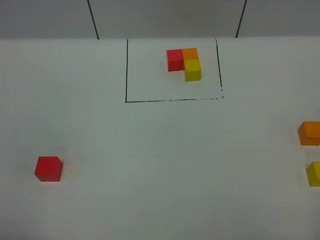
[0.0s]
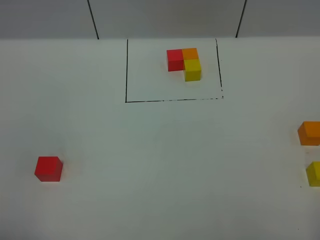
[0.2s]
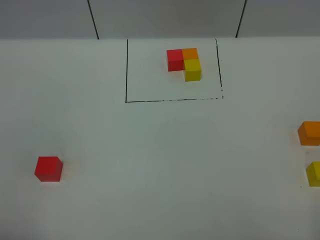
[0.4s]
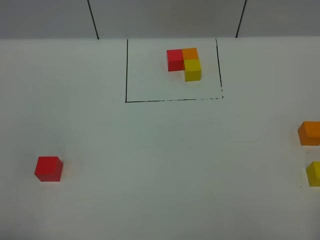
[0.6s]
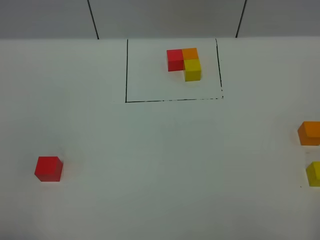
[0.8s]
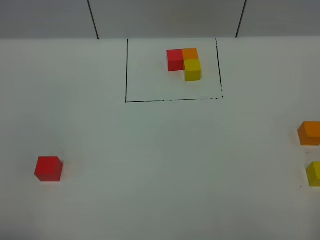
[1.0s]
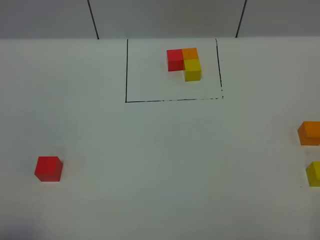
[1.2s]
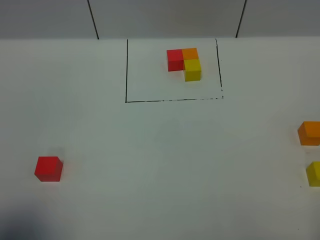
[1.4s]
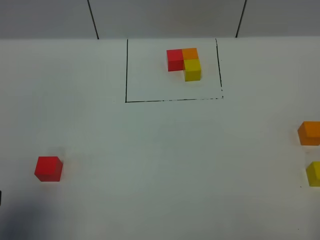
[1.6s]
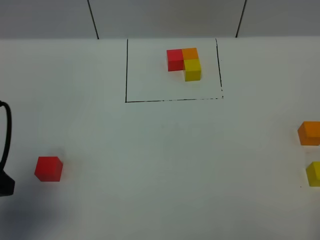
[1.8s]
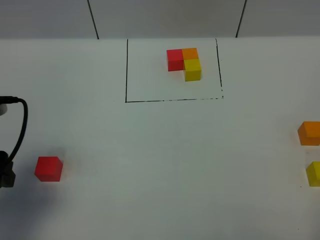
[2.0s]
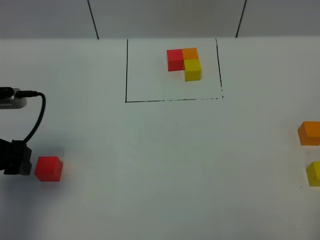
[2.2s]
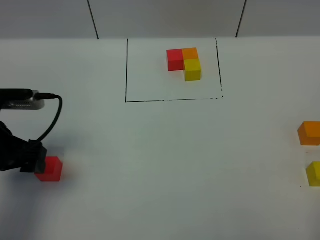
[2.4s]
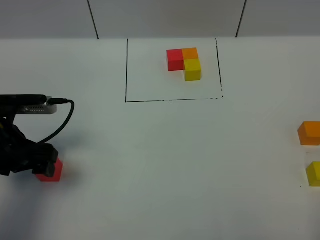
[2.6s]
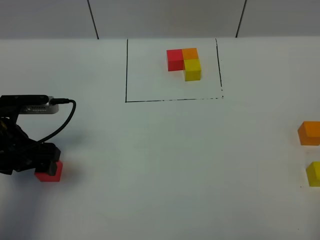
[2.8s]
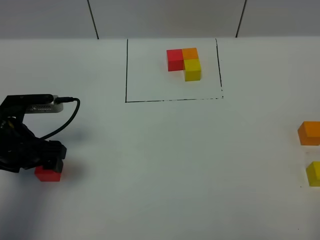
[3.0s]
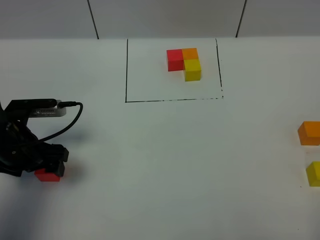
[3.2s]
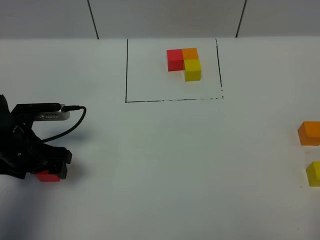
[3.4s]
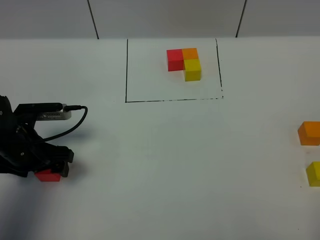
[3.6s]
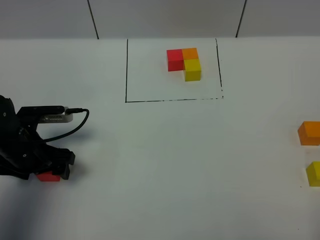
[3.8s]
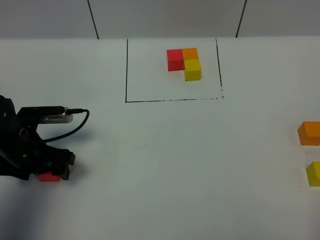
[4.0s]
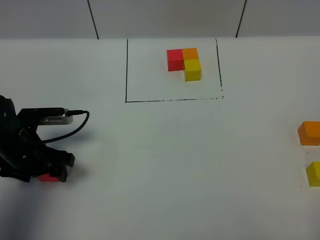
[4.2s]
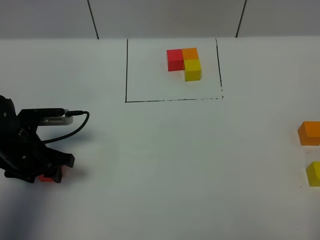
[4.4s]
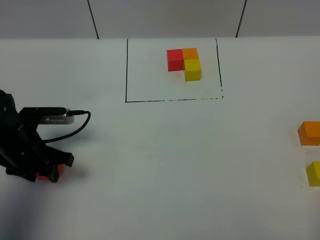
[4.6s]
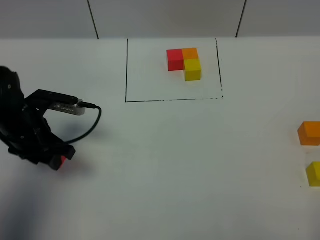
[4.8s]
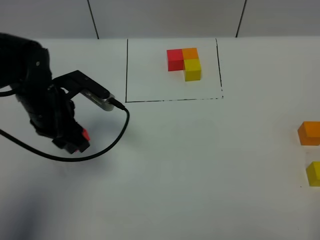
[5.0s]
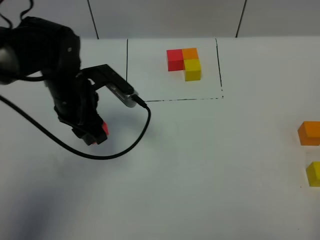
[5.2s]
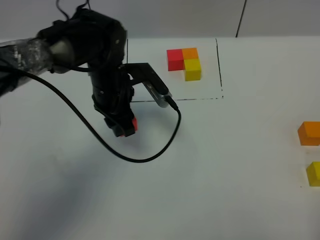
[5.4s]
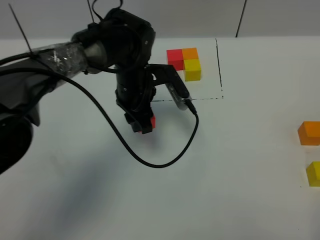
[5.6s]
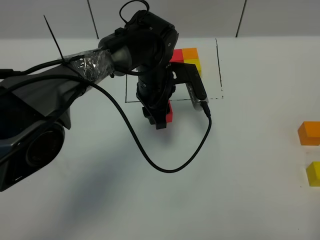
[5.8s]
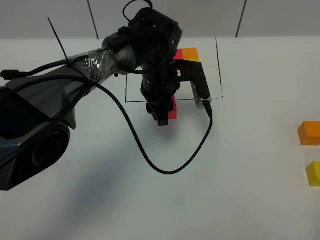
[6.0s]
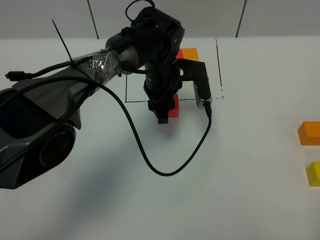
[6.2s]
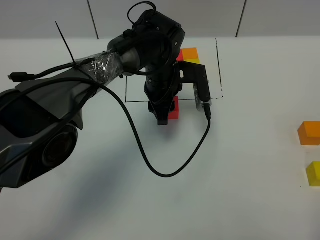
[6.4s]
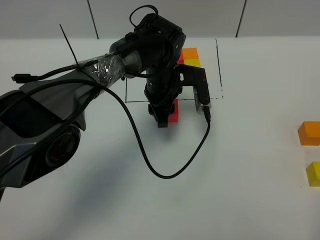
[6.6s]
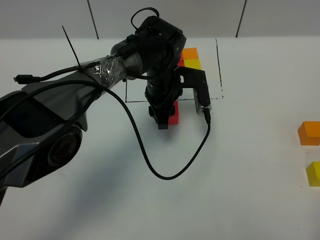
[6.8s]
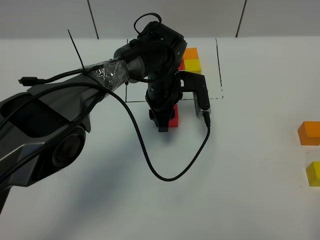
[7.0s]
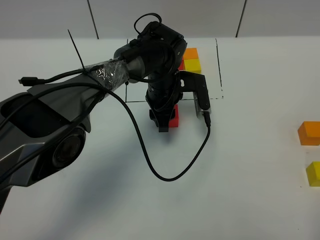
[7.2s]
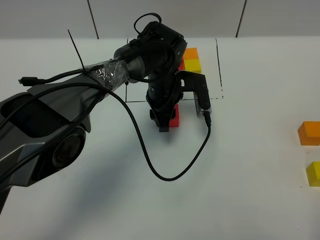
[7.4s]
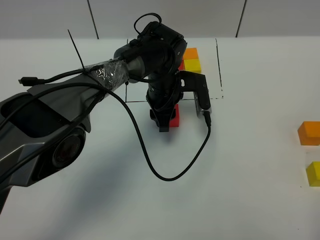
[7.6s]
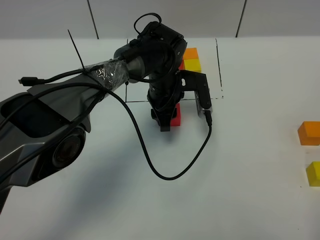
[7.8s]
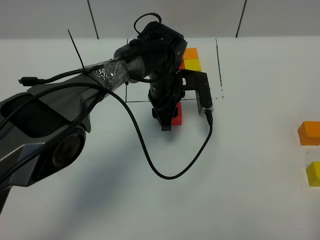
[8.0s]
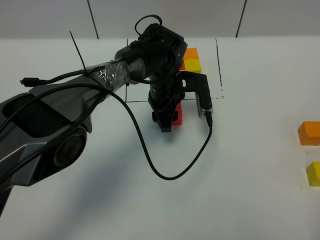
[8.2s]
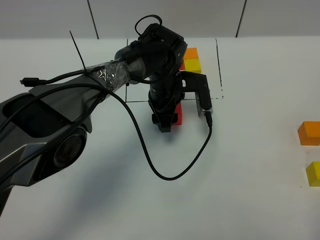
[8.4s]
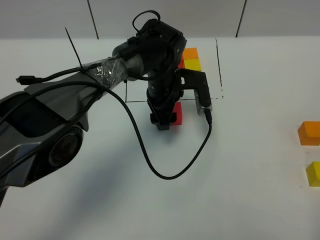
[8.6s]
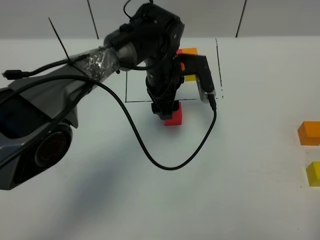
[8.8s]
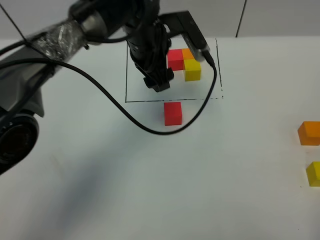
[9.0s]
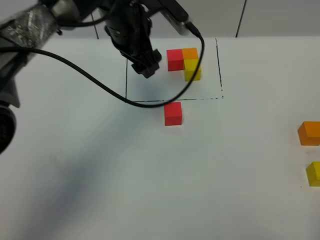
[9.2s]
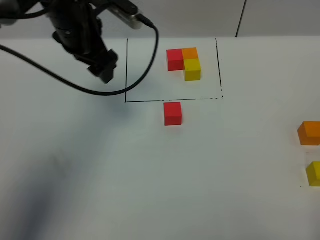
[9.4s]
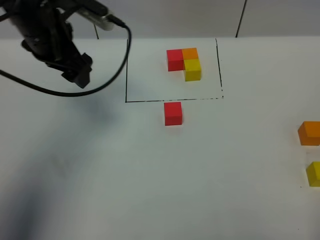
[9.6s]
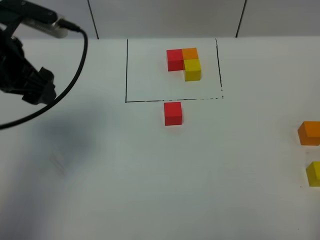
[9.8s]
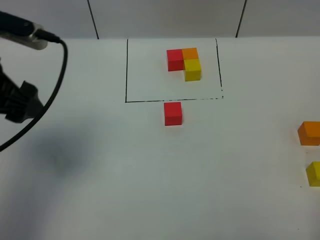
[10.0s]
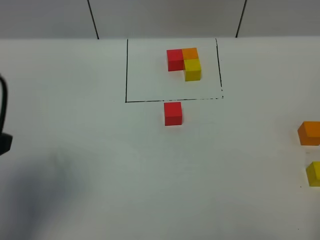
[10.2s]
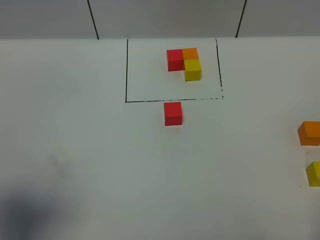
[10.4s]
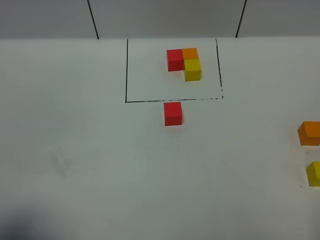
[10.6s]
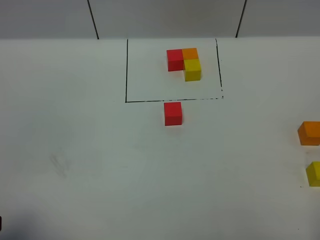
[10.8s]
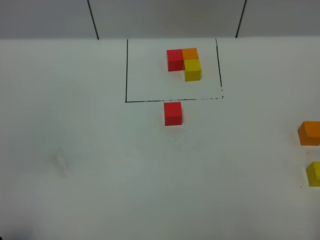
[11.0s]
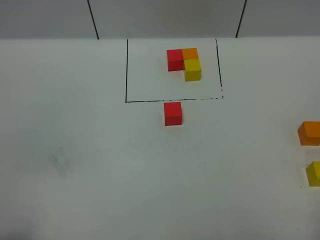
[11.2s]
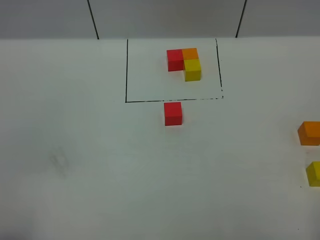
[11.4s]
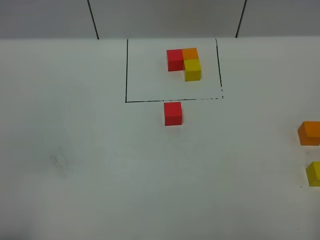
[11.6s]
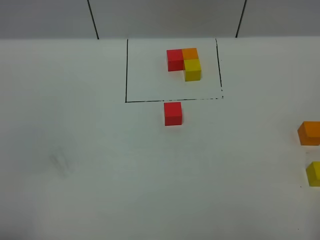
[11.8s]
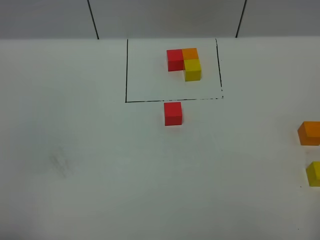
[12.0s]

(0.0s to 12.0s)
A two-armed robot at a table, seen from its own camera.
Task of the whole recording: According to the building block template in front, assemble the scattered blocks together.
Step, 0.0s - 8.2s: Put the red build block in the center of the table.
0.0s - 1.6s: The left gripper goes about 10 cm forward.
1.6s - 3.0s: The left gripper is displaced forward and downward by some 20 cm.
3.0s - 4.4s: The left gripper closes.
4.4s - 6.0s: The left gripper shifts about 30 cm to the right and forward.
6.0s - 7.6s: There are only small adjustments of the grippers.
7.6s - 9.0s: The left gripper travels upward by about 10 cm, and opens its fingers.
9.0s - 10.4s: The left gripper travels backward and to the left by approximately 40 cm.
10.4s - 12.0s: The left gripper moves backward and downward, approximately 10 cm.

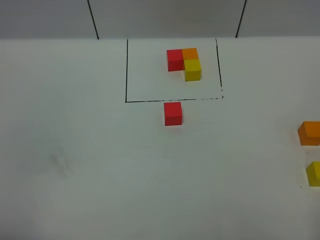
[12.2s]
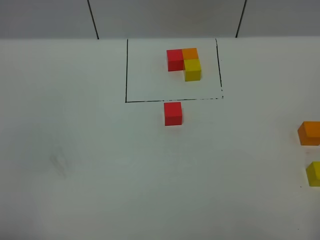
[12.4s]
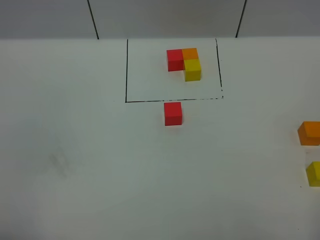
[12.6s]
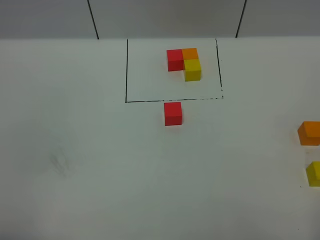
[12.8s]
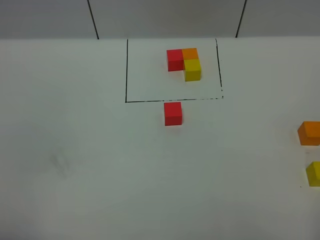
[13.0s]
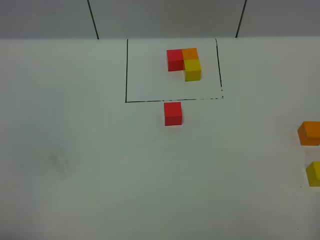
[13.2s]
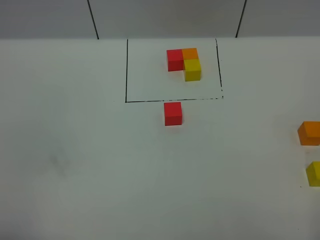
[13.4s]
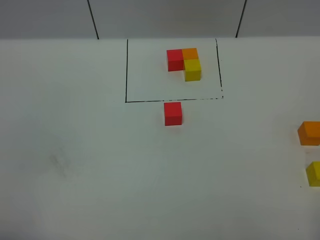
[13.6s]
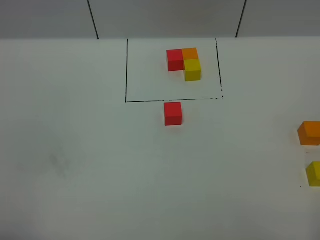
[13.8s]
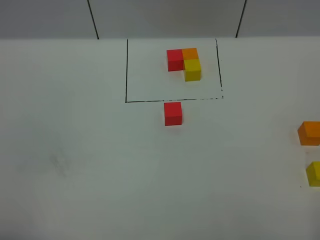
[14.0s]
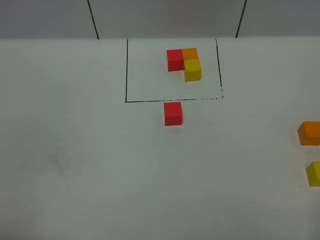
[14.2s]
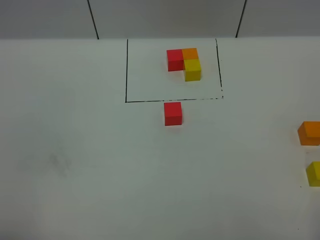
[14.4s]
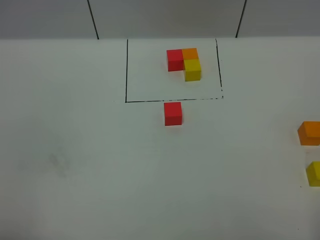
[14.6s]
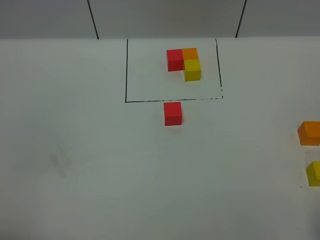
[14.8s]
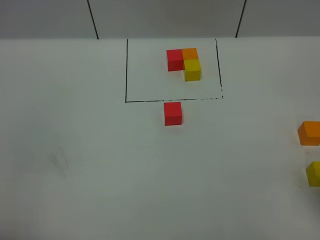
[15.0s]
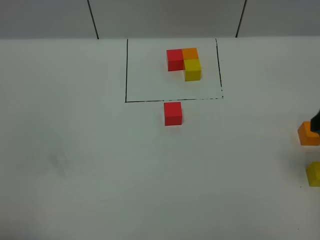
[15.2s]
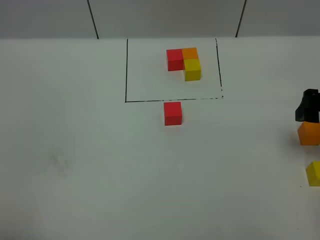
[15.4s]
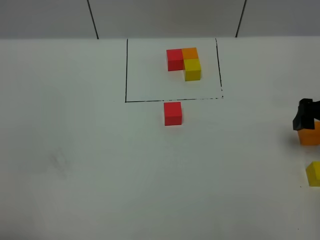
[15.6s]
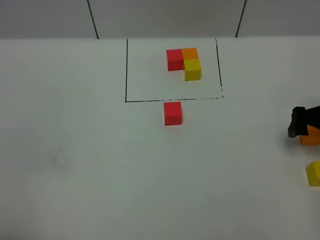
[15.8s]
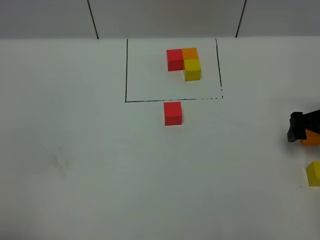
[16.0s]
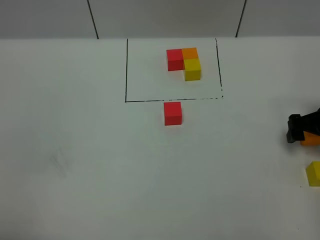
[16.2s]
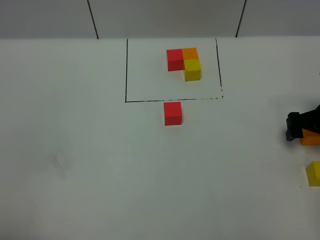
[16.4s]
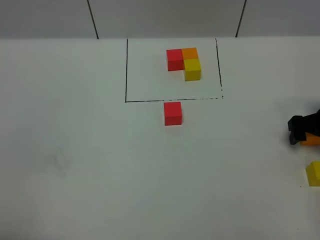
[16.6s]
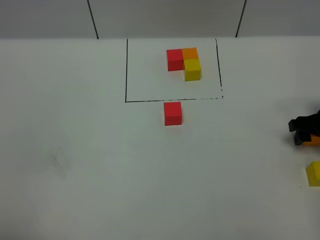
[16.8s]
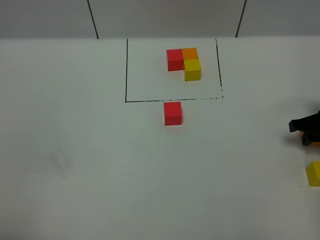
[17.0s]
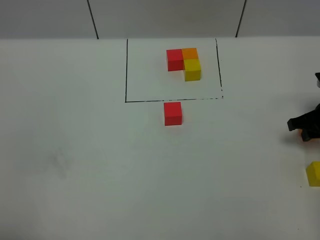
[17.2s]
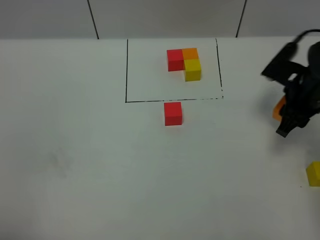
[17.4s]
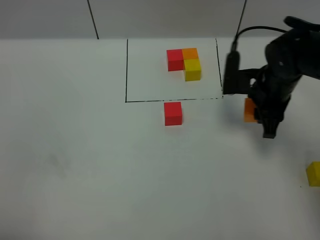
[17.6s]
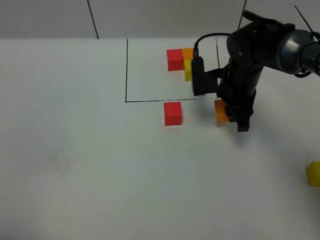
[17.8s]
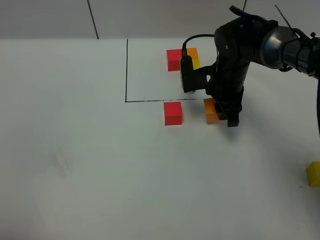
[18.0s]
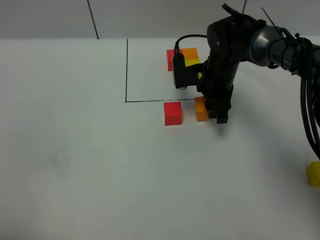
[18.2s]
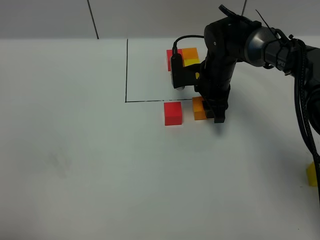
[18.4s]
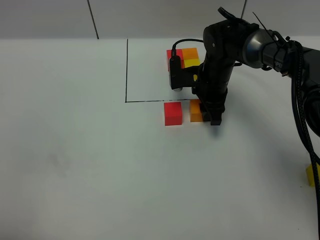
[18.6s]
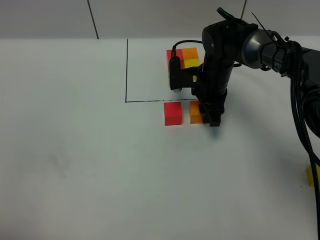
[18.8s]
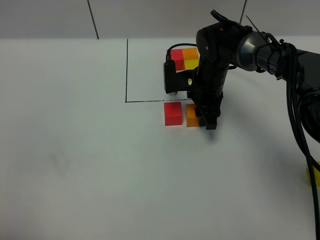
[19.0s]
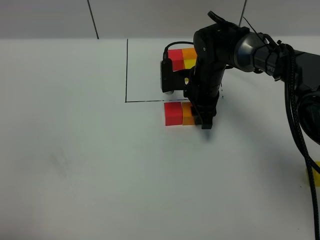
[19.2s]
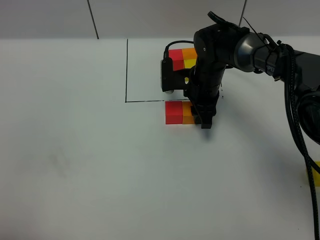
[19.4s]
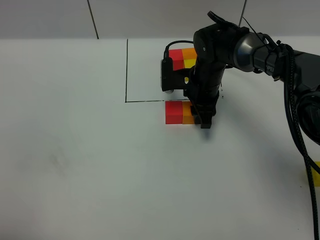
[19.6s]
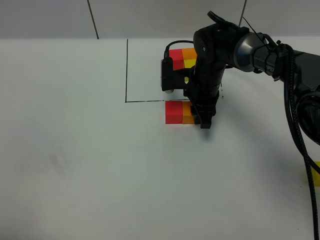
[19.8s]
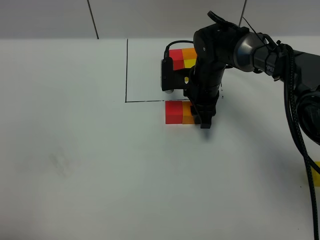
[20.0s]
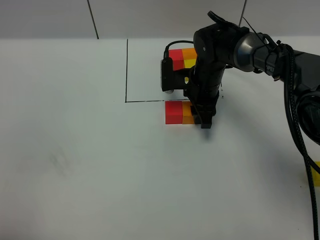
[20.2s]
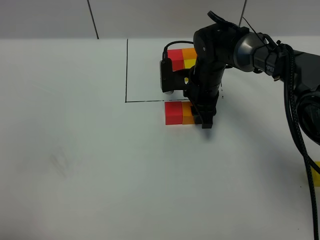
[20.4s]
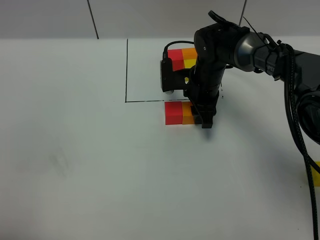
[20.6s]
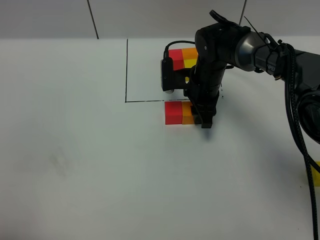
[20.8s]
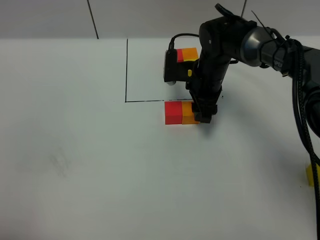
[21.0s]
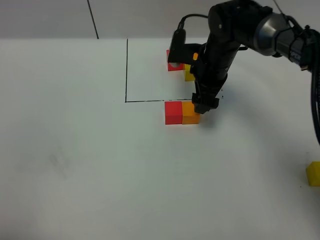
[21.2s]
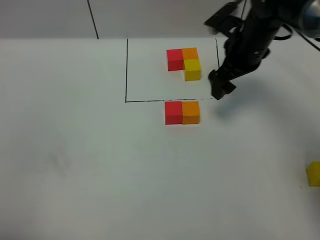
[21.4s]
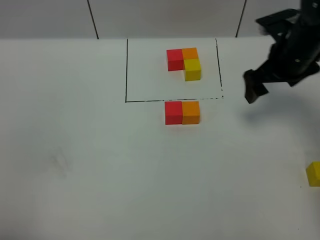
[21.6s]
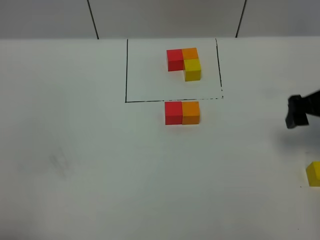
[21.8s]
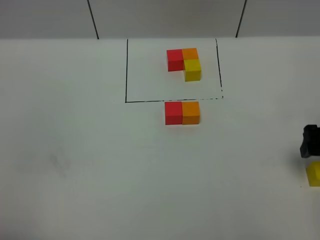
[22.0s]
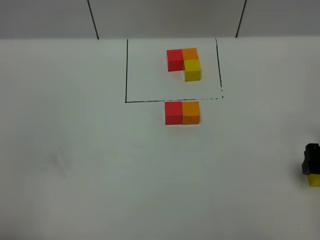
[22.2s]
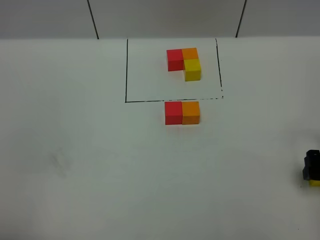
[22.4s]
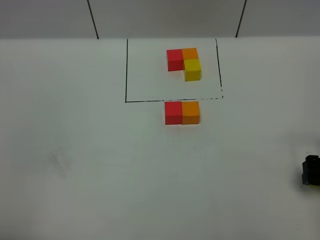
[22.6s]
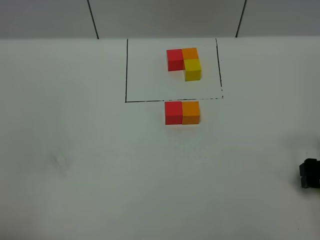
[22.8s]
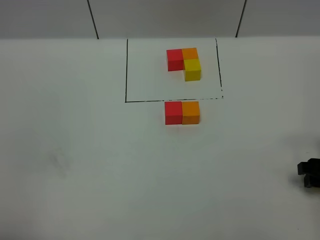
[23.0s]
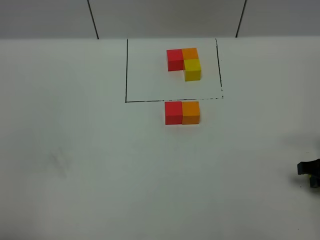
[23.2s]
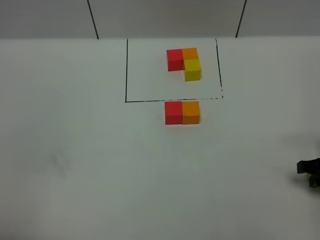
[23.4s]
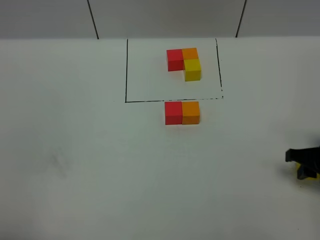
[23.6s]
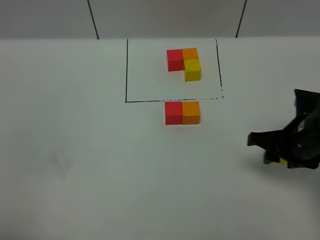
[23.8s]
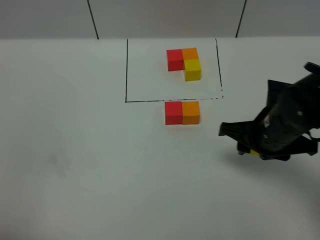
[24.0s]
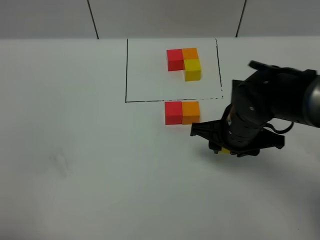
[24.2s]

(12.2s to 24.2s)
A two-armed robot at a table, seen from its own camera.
Task of the whole recording: According to the building block template in front, assemble the scattered blocks together.
Step, 12.2s - 20.8s: Put the orange build block on the right of the red build block.
12.2s - 13.8s: The two grippers keep their place.
13.8s - 15.2s: The right gripper travels forward by about 20 cm, and opens up.
15.2s - 16.6s: The right gripper heads downward and forward, covering about 20 cm.
16.6s - 18.2s: The right gripper heads to the left and forward, covering approximately 25 cm, and closes its fingers.
18.2s - 19.8s: The grippers stay close to where they were, moving slightly.
19.8s - 21.2s: The right gripper moves upward, about 5 cm, and opens its fingers.
21.2s - 22.6s: The right gripper moves backward and to the right, about 30 cm.
22.6s - 24.2s: The right gripper travels to the left by approximately 20 cm, and closes.
